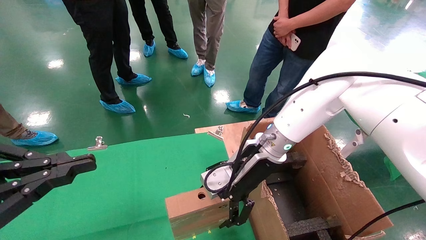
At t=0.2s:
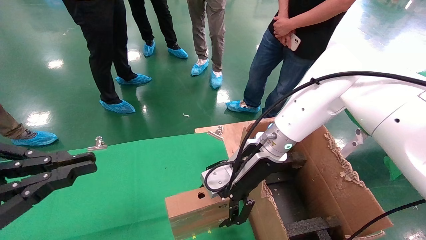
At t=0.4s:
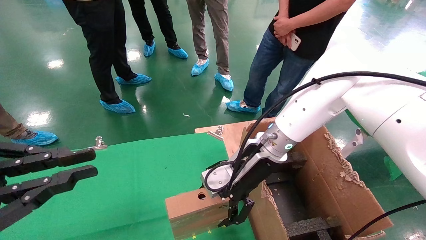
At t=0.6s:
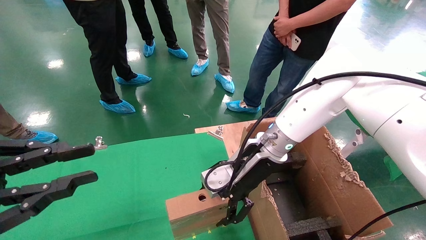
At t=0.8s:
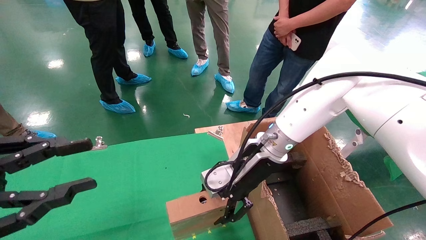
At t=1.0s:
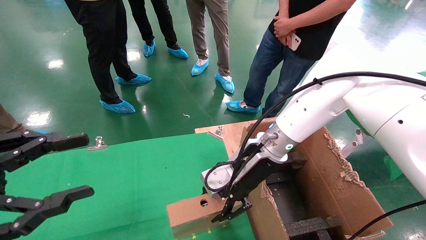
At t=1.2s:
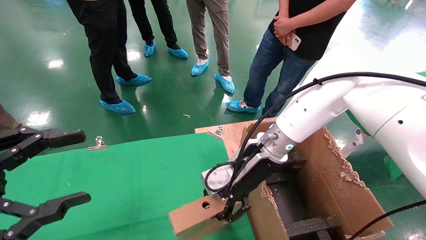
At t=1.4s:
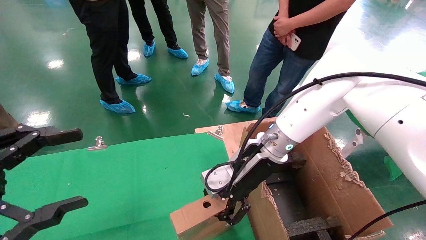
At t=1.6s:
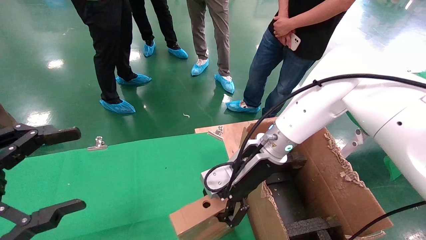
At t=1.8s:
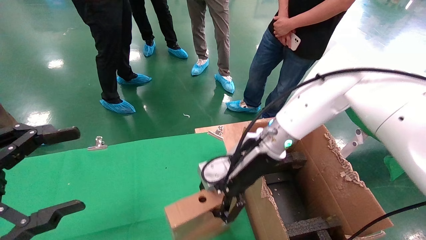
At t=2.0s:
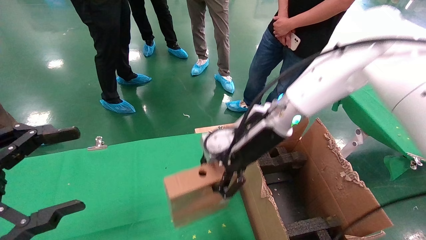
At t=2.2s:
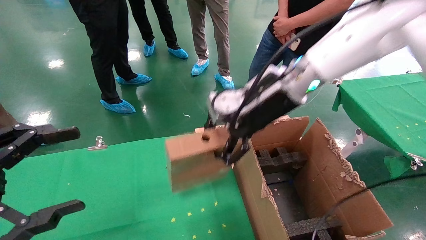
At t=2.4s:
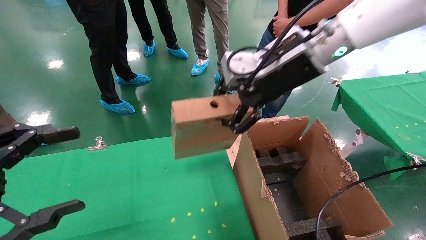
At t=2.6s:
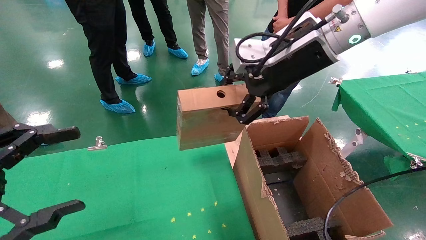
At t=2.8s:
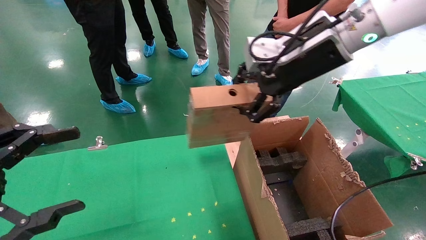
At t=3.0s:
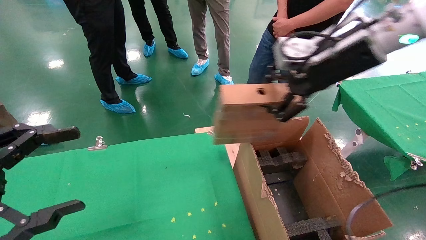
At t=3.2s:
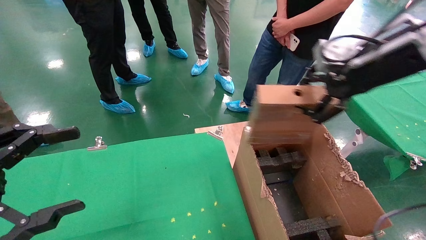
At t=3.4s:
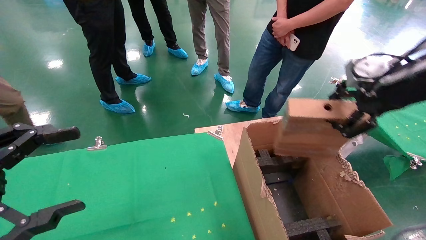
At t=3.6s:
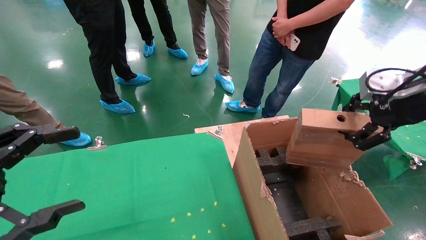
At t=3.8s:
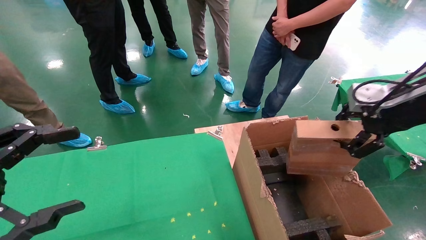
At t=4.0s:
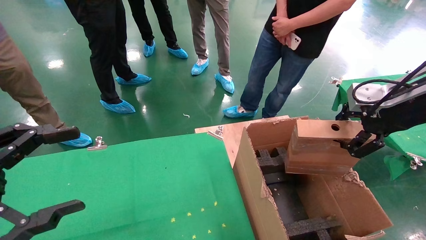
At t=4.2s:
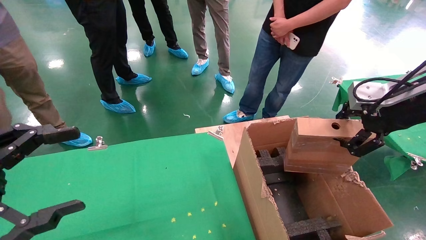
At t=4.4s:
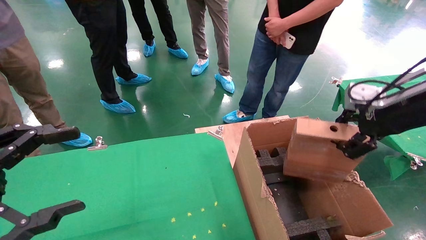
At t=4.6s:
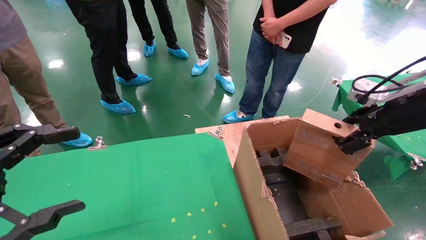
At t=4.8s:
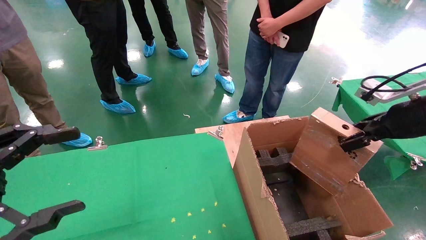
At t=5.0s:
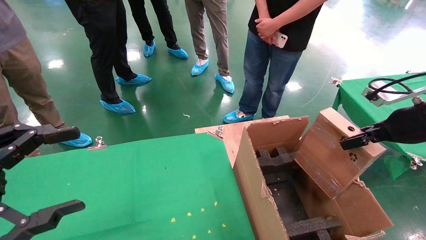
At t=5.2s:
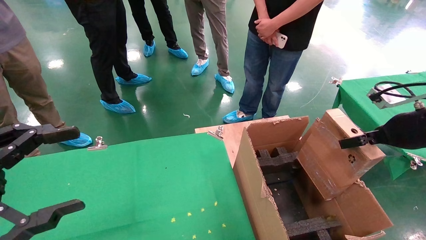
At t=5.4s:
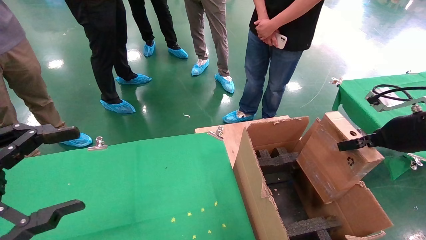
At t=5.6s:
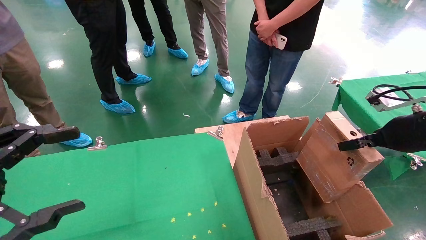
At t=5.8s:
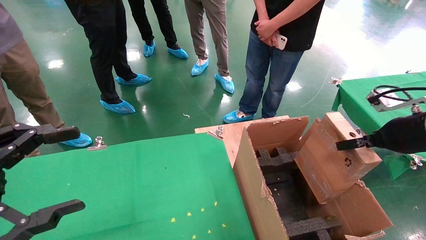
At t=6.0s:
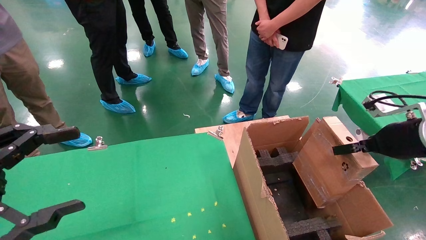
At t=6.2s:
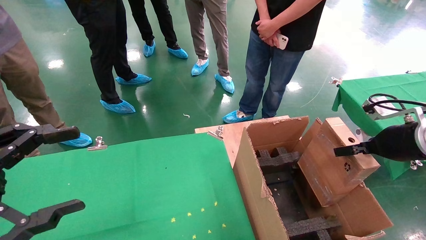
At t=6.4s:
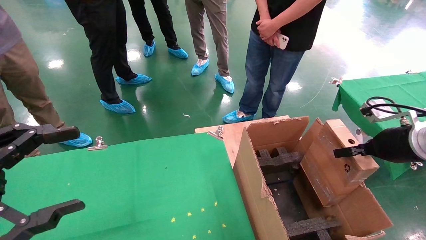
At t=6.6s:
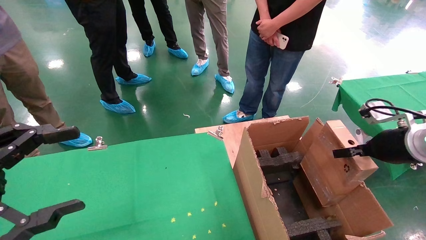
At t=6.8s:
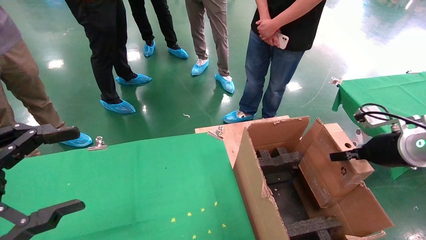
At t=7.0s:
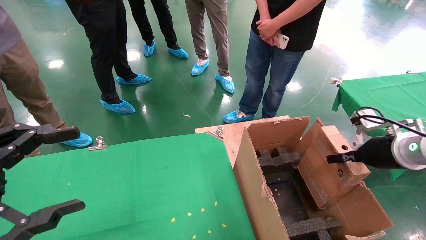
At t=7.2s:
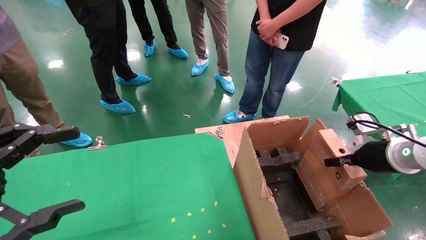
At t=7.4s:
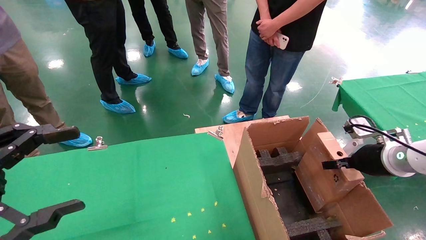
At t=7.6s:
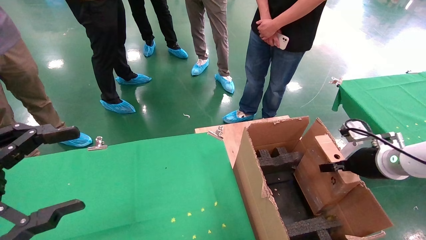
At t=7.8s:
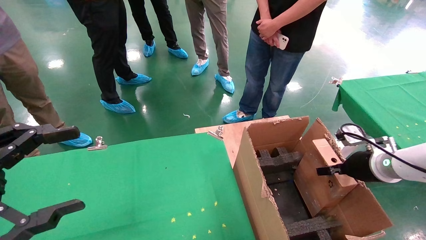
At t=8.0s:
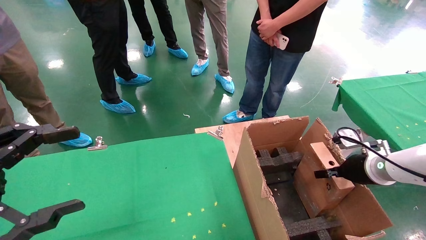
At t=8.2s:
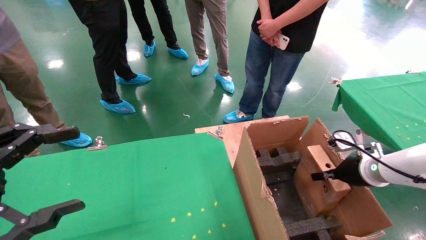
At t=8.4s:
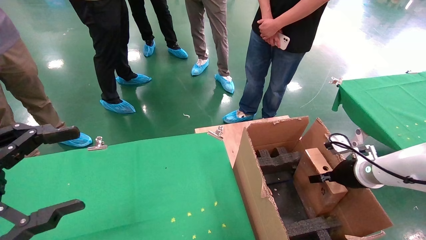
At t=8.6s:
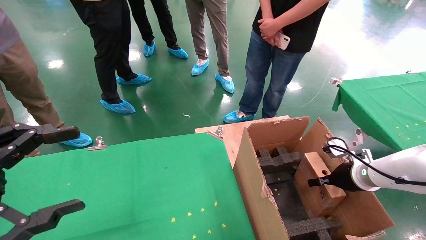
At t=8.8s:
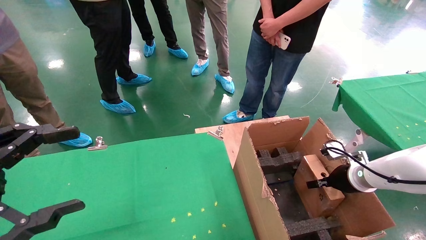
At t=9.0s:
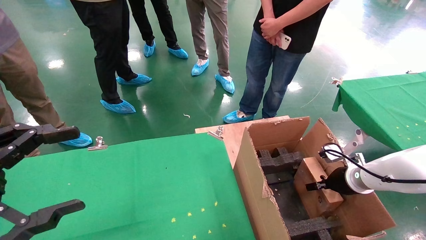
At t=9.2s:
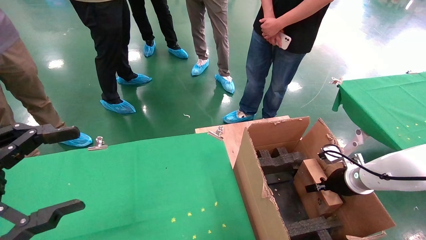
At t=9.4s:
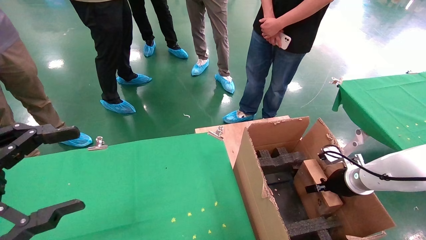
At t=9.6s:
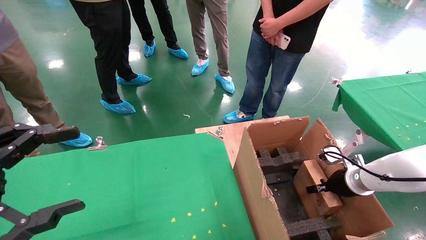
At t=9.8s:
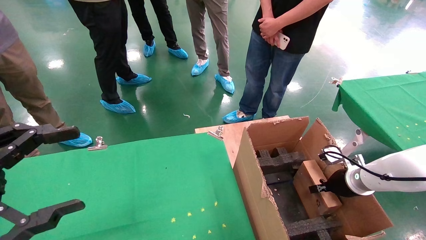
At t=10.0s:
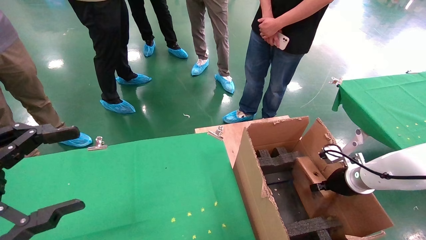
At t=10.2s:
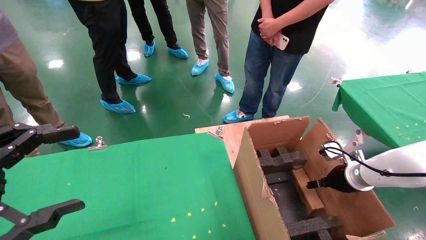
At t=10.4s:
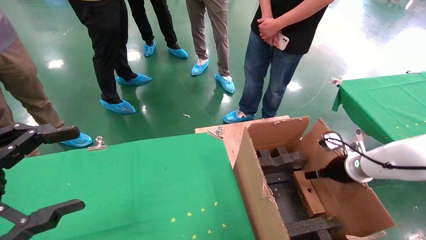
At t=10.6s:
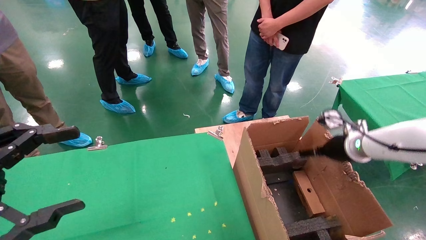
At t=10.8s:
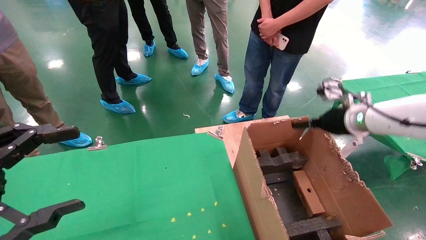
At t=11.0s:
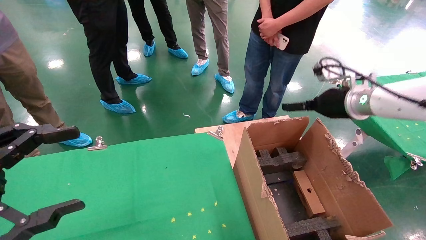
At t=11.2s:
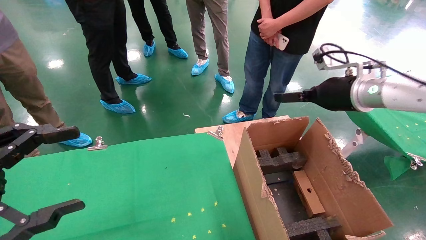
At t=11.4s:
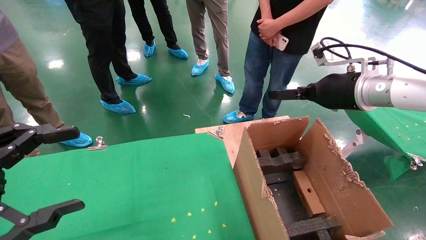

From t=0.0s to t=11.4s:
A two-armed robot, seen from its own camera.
Task of the whole recording: using a robotic arm to pick up a cardboard box and palace it the carton.
Step, from t=1.4s to t=10.6s: Place the mouse and the power cord paper box into the container.
From t=0.0s to t=1.4s: The right gripper closes. The left gripper opens.
From t=1.4s to t=2.8s: The right gripper is displaced upward and to the right by approximately 20 cm.
From t=2.8s to t=4.2s: The right gripper moves to the right and downward, approximately 20 cm.
From t=4.2s to t=5.6s: The right gripper heads downward, covering some 5 cm.
From t=5.6s to t=7.2s: The right gripper shifts approximately 10 cm downward.
From t=7.2s to t=8.6s: The right gripper is displaced downward and forward by some 10 cm.
From t=8.6s to t=10.0s: There are only small adjustments of the grippers.
From t=10.0s to t=11.4s: The right gripper is displaced upward by some 25 cm, and opens its fingers.

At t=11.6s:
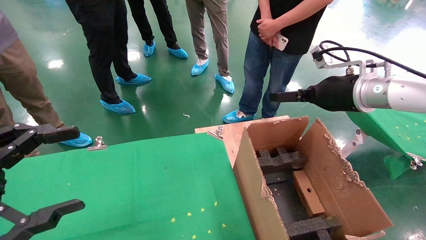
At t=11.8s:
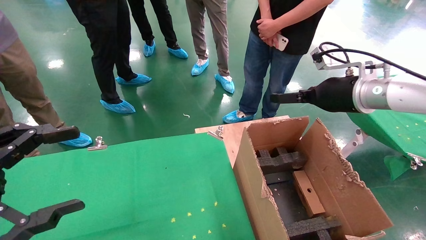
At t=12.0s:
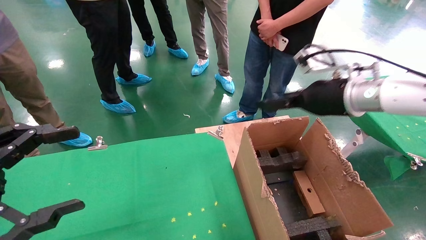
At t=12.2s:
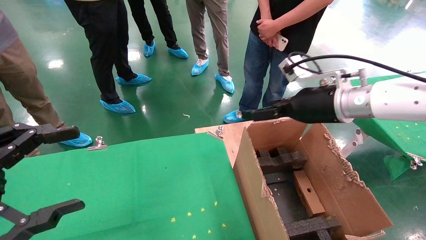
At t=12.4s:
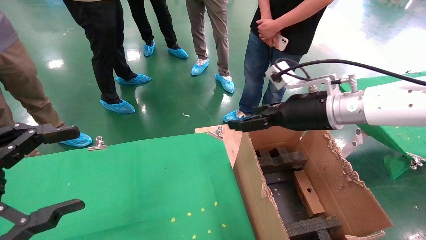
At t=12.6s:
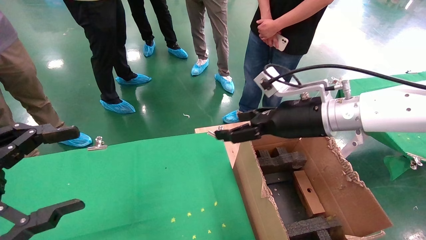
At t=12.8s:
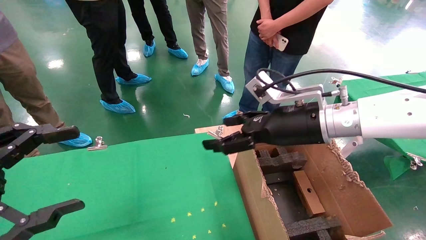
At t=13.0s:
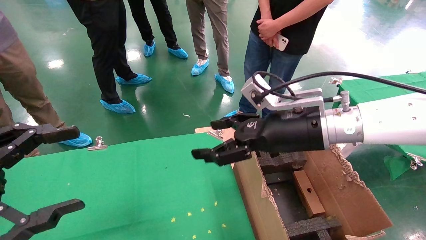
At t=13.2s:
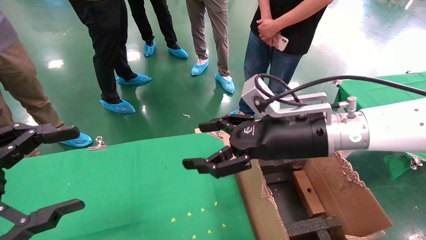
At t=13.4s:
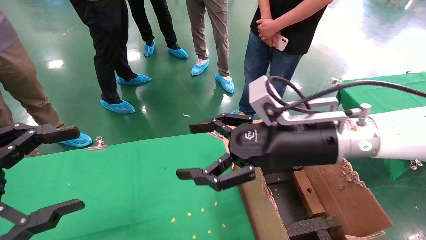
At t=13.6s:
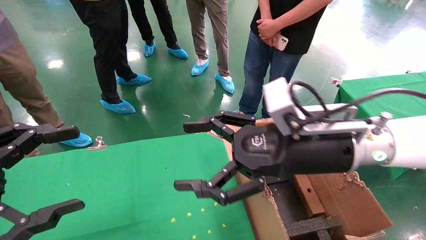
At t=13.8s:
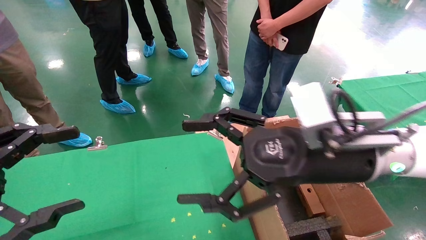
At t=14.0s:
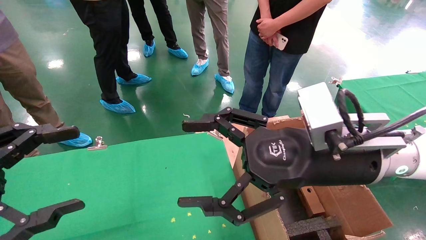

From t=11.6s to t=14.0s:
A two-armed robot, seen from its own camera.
Task of the whole recording: using a robotic arm to pick up a cardboard box and palace it the carton.
From t=11.6s to t=12.8s: The right gripper moves to the left, some 10 cm.
From t=12.8s to t=14.0s: The right gripper goes roughly 10 cm backward.
